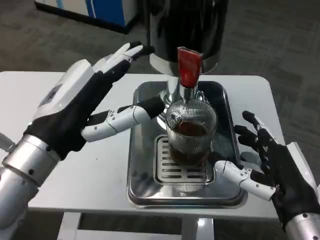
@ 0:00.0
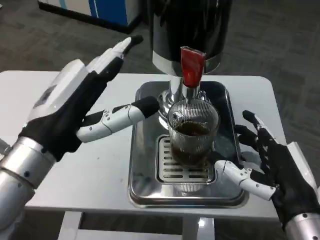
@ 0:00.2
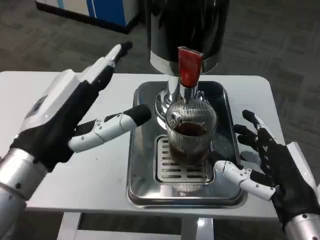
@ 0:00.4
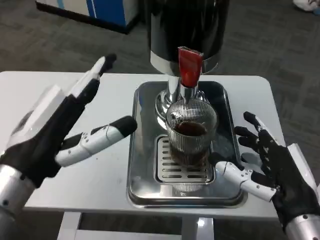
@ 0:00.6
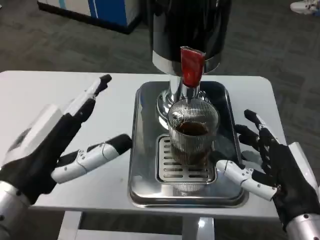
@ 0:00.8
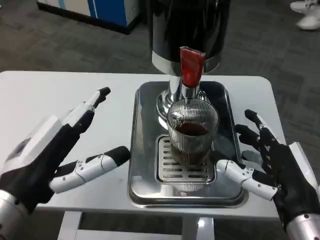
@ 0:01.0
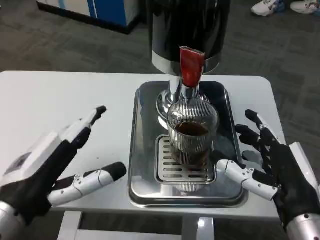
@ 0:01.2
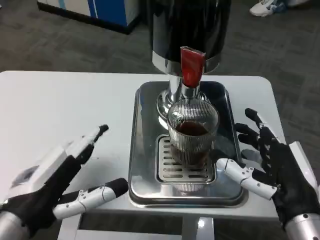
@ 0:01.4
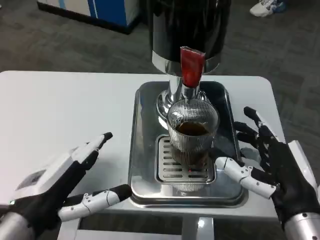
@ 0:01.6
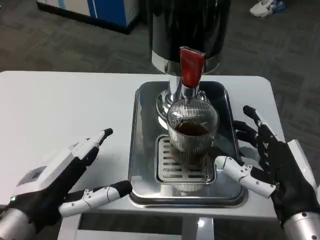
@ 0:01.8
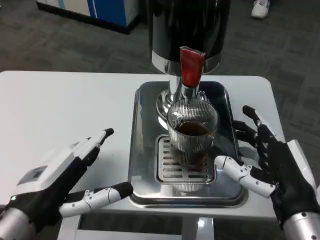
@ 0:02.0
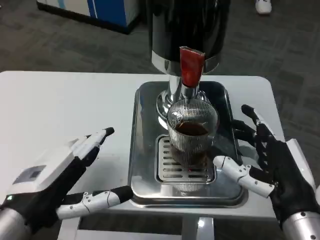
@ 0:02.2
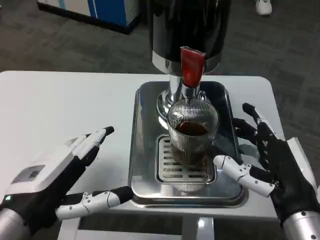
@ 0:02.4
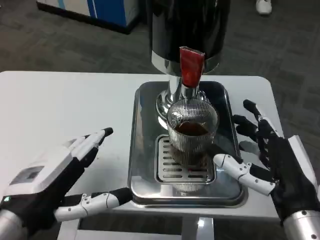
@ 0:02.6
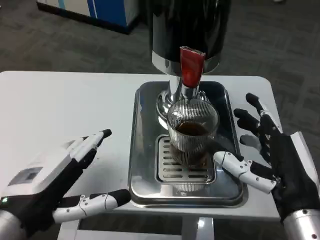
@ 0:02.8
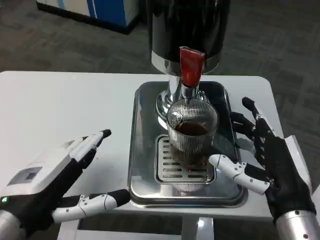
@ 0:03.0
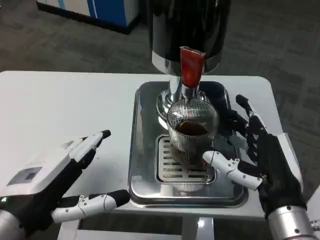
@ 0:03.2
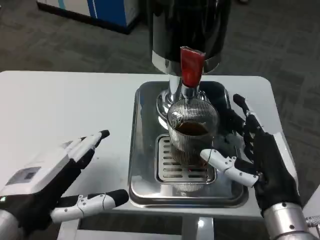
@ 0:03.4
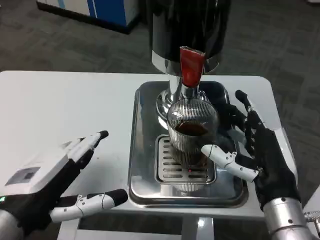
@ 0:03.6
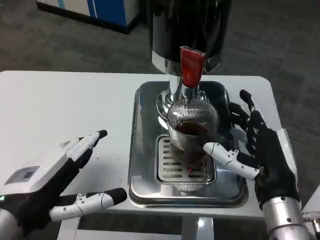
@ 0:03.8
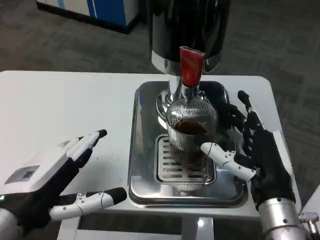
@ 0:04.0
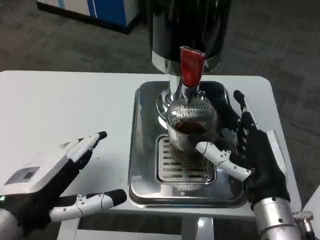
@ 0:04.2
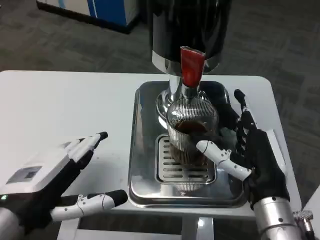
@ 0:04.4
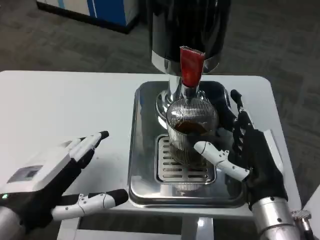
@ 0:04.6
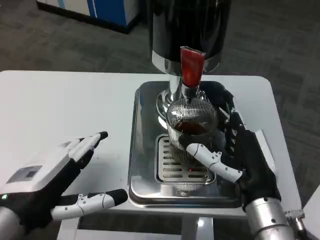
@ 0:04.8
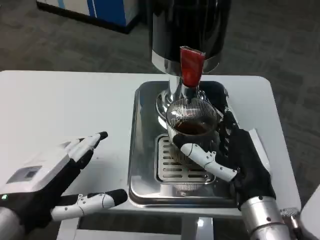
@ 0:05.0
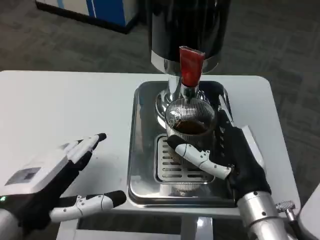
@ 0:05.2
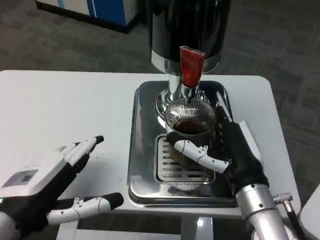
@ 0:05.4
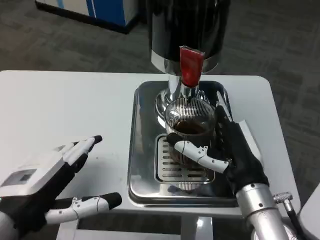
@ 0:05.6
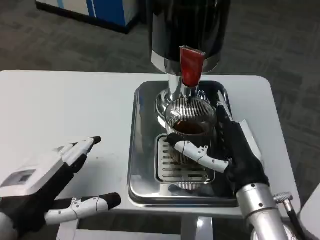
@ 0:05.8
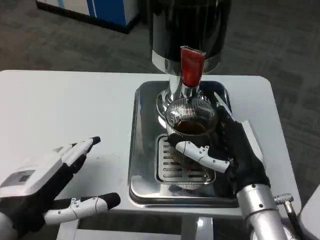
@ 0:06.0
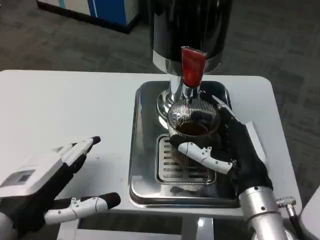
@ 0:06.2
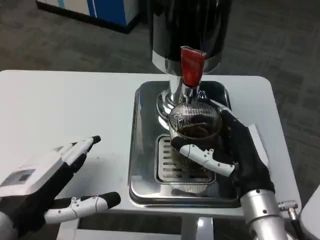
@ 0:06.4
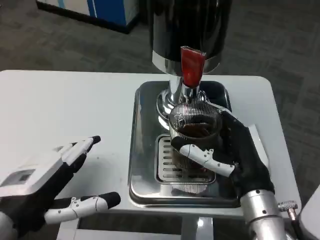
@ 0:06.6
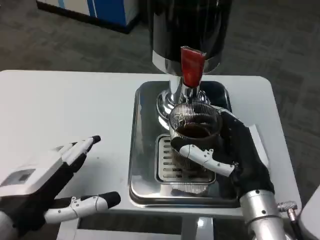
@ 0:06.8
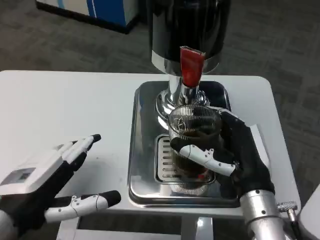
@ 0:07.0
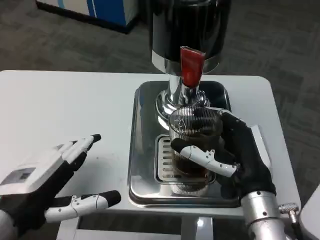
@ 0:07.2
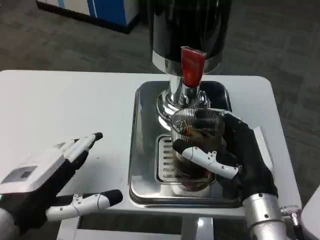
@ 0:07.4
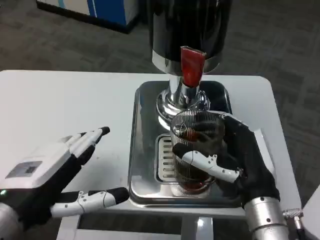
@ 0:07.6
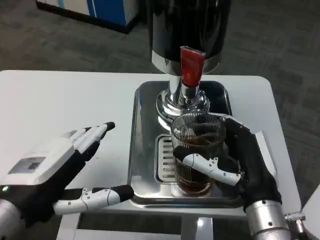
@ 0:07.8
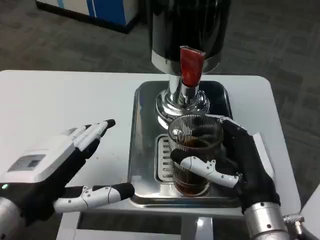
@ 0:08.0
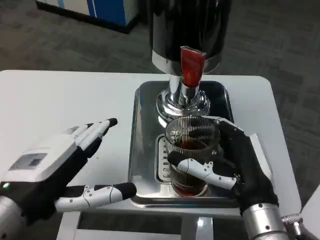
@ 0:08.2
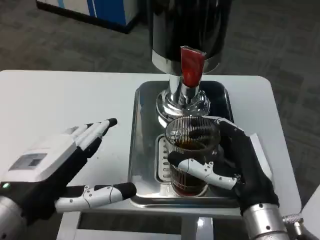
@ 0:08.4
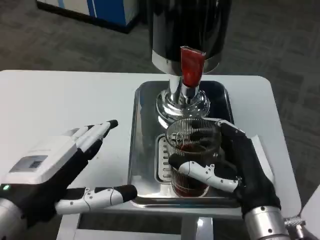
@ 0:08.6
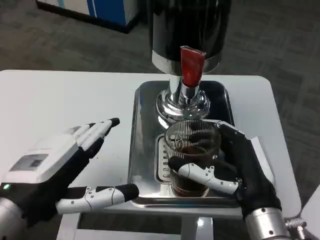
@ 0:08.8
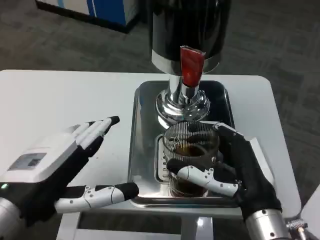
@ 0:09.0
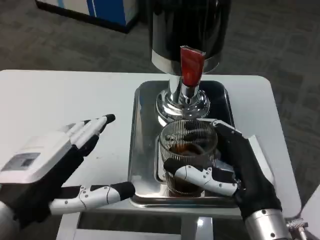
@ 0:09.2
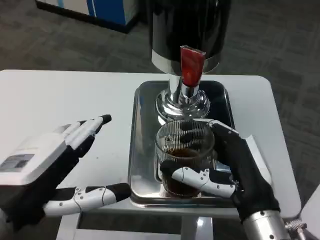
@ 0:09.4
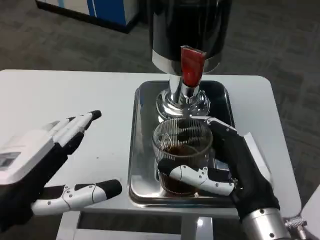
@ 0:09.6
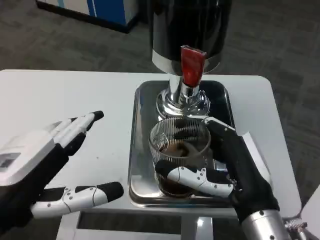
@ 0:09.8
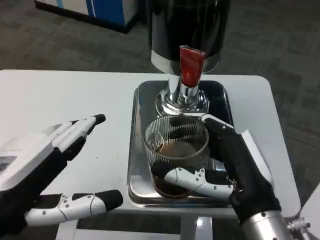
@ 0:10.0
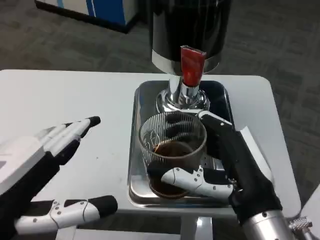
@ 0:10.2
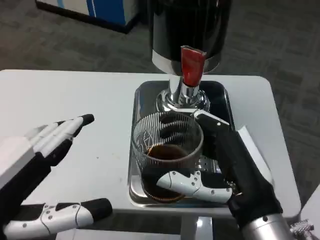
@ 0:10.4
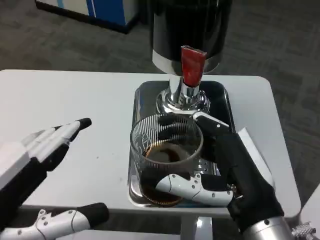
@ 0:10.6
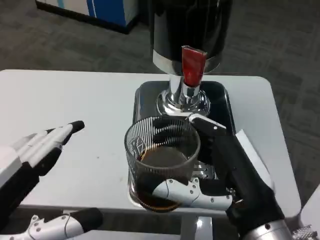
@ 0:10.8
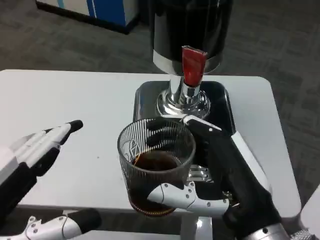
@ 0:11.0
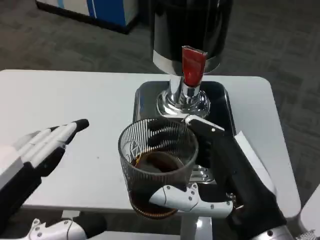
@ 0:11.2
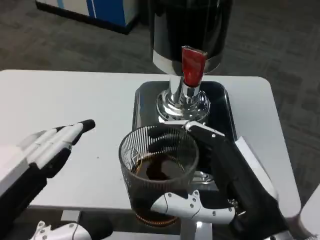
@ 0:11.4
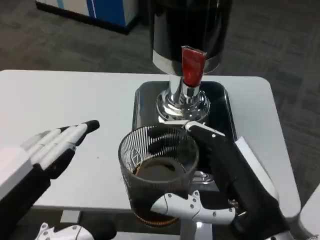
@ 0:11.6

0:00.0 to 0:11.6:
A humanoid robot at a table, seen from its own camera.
Task of the whole recording: Grasp the cup under the faucet to collect the drink, then remove the cup.
0:00.0 to 0:01.4: The left hand travels downward by some 10 cm.
0:01.4 to 0:02.8: The hands move only a little.
0:02.8 to 0:04.4: The right hand moves roughly 5 cm.
0:04.4 to 0:05.8: The hands stay close to where they were, moving slightly.
0:05.8 to 0:07.2: The two hands keep their place.
0:07.2 to 0:08.8: The hands move only a little.
0:08.8 to 0:10.2: The left hand moves backward, approximately 5 cm; the right hand shifts by roughly 5 cm.

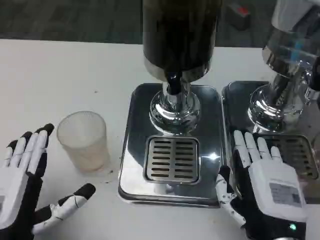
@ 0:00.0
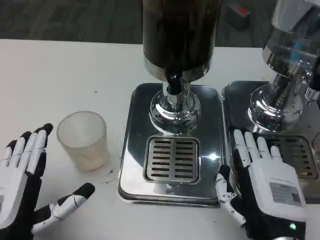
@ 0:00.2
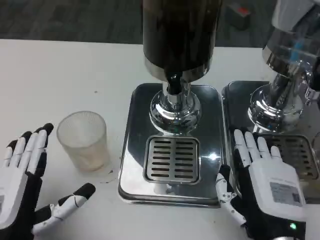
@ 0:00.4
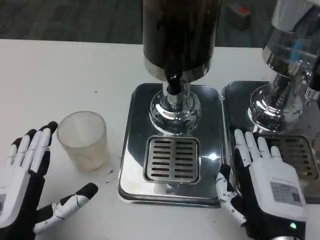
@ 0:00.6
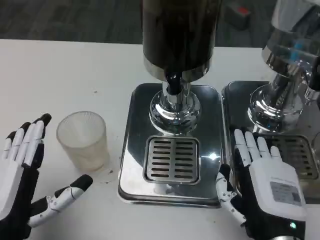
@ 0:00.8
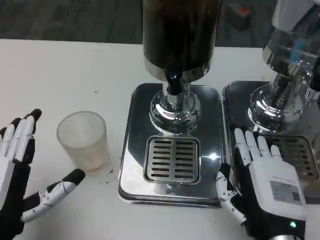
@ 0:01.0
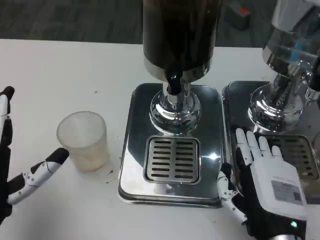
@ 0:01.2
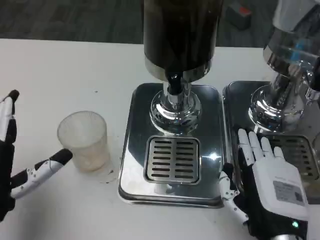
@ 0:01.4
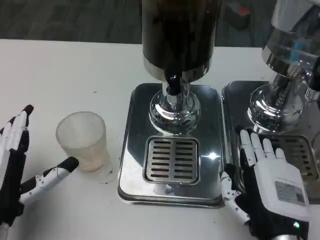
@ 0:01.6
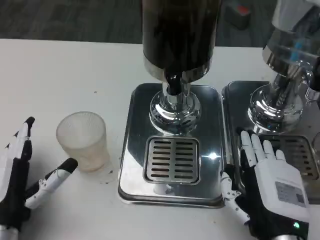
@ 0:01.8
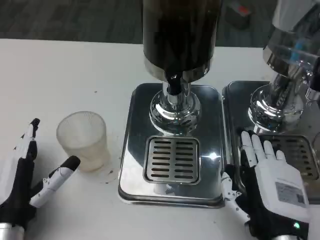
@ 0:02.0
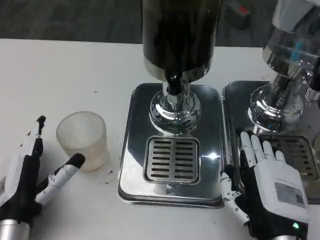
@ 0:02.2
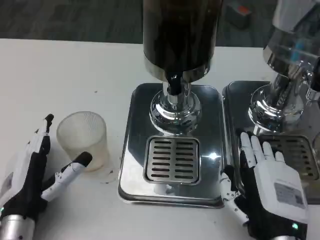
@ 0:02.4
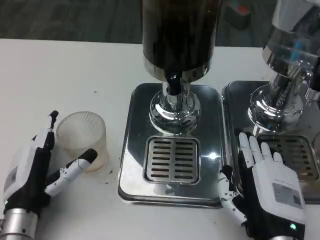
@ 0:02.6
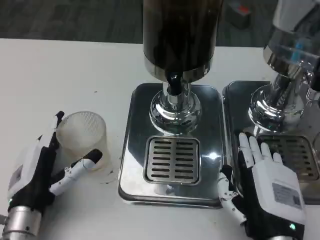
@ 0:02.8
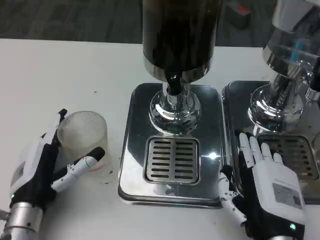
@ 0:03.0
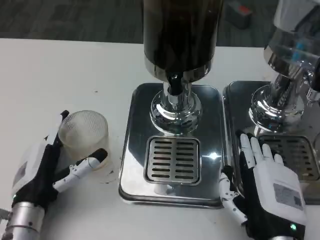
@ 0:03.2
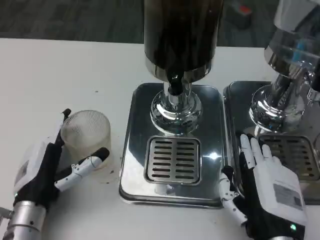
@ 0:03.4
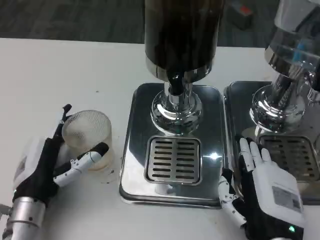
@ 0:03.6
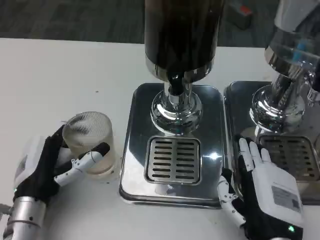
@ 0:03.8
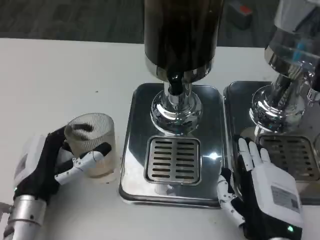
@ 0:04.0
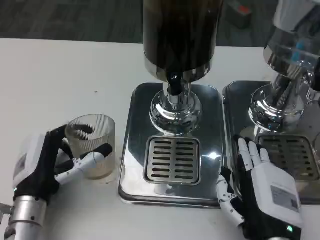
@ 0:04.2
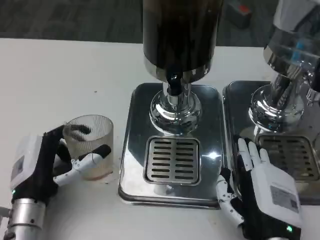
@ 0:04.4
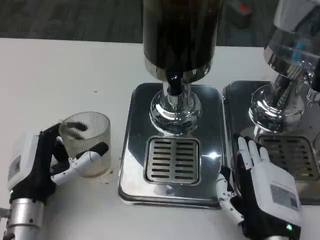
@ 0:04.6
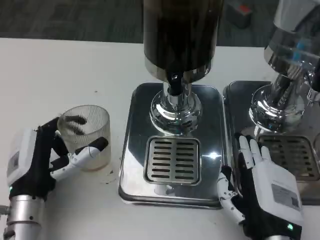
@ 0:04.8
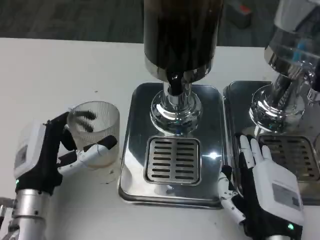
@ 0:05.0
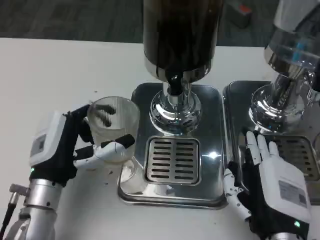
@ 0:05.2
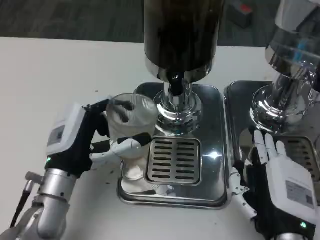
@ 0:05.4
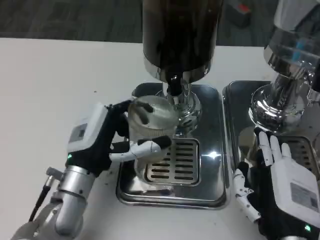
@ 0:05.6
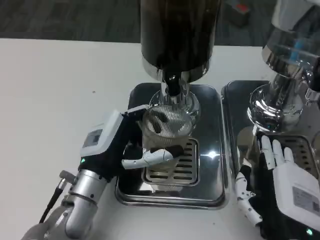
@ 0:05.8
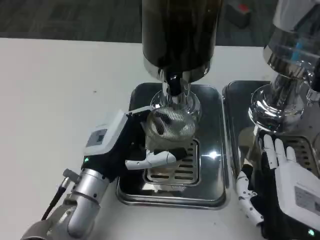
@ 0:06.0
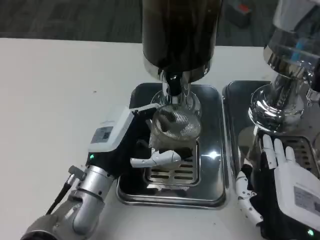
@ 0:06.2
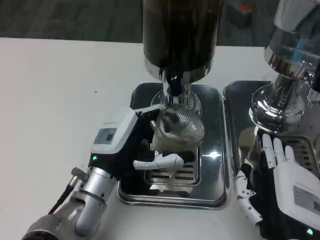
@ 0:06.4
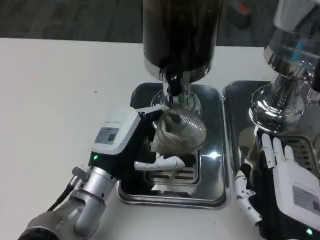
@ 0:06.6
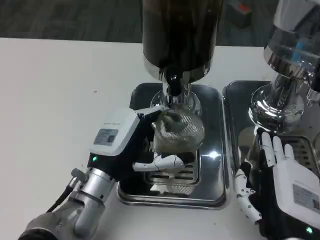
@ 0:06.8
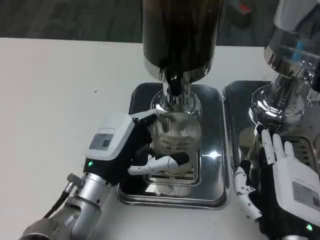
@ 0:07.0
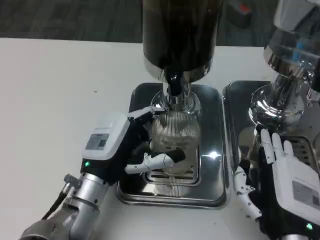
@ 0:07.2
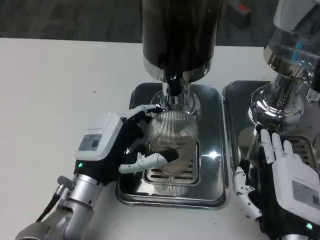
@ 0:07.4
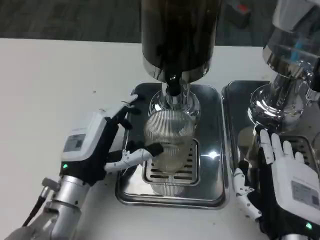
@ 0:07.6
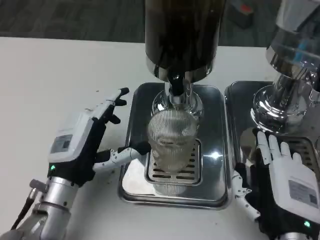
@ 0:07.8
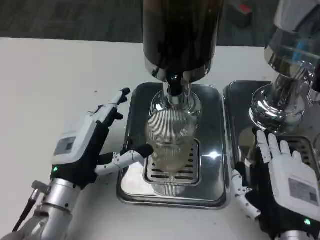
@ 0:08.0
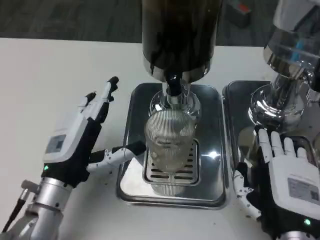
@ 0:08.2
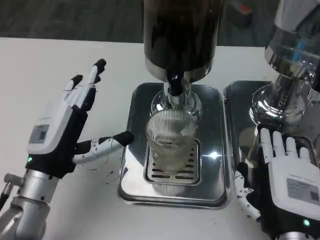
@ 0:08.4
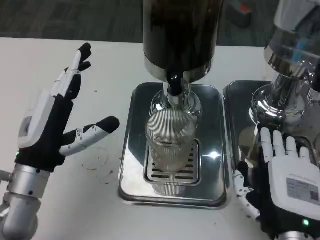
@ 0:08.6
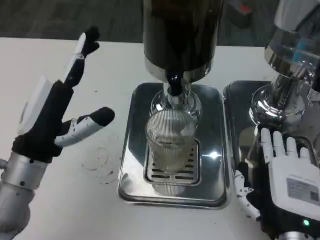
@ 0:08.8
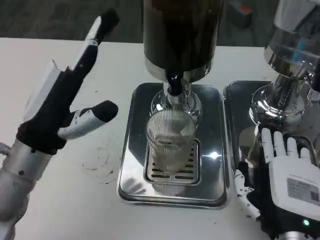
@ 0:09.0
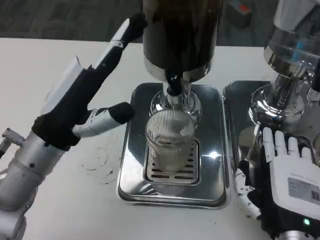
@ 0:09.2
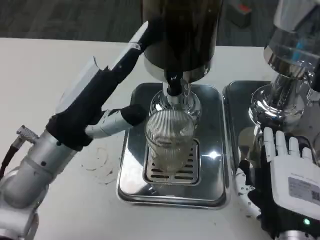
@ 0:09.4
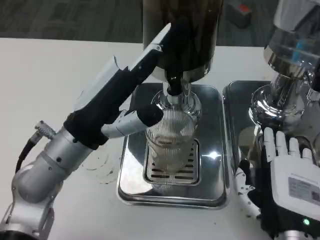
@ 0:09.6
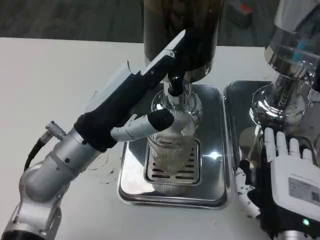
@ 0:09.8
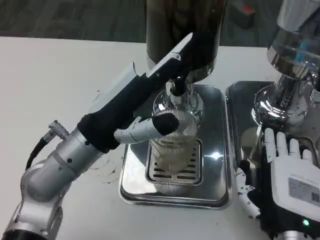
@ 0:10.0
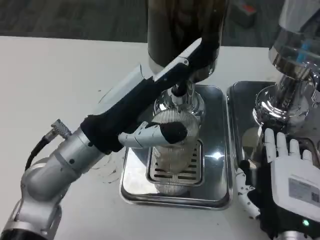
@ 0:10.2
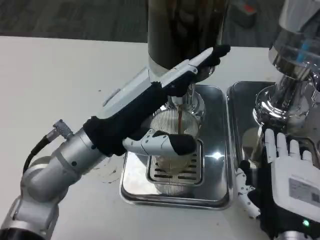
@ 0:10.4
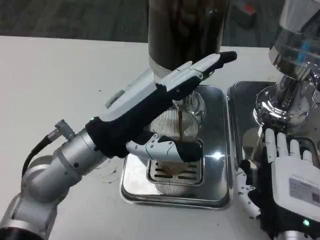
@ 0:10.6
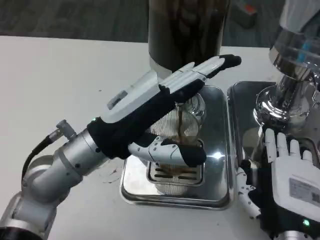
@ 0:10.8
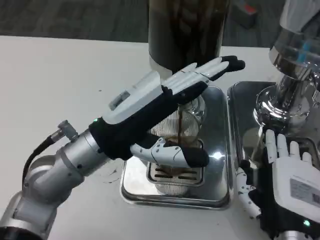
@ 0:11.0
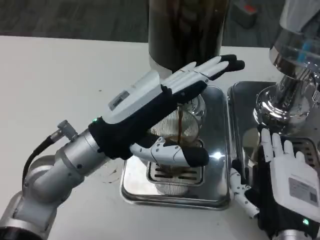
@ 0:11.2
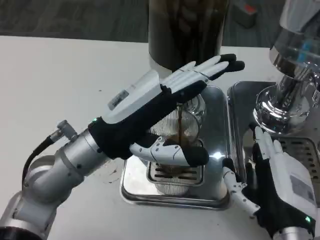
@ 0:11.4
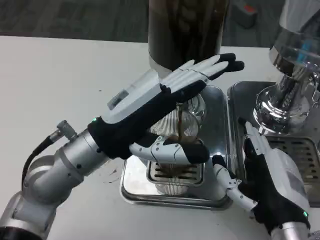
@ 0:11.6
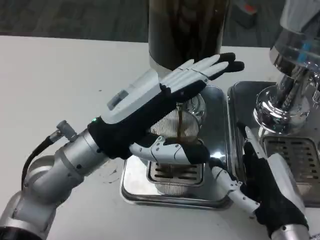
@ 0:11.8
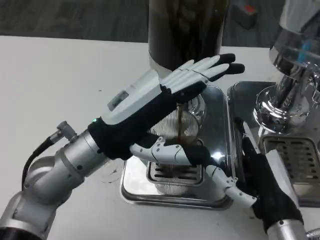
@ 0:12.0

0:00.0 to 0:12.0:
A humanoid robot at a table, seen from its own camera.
Task of the whole recording: Grasp the cup under the faucet to collect the drink, then remove the cup.
0:00.0 to 0:01.6: The hands stay close to where they were, moving slightly.
0:01.6 to 0:04.4: There are only small adjustments of the hands.
0:04.4 to 0:06.0: The left hand is displaced to the right by about 5 cm.
0:06.0 to 0:07.6: The hands stay close to where they were, moving slightly.
0:07.6 to 0:09.0: The left hand travels upward by approximately 10 cm.
0:09.0 to 0:10.4: The left hand travels to the right by some 5 cm.
